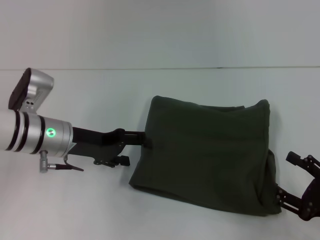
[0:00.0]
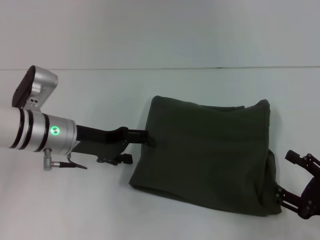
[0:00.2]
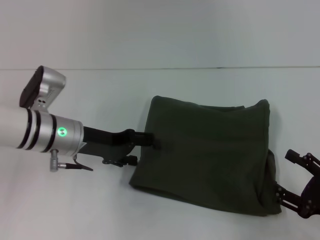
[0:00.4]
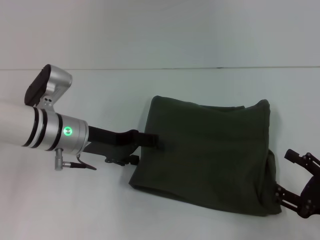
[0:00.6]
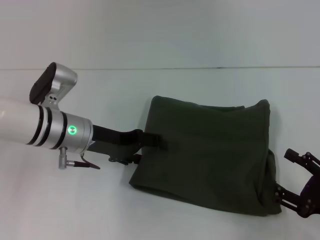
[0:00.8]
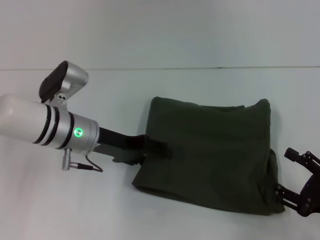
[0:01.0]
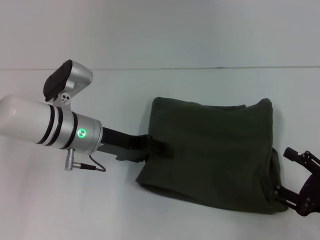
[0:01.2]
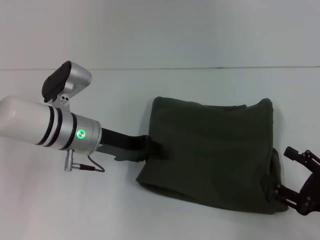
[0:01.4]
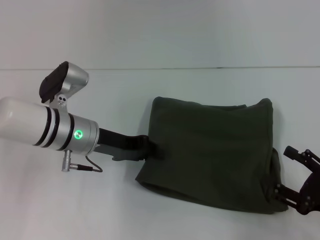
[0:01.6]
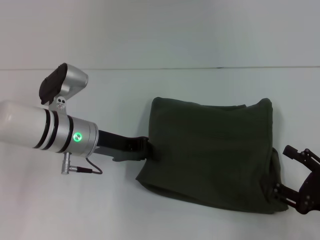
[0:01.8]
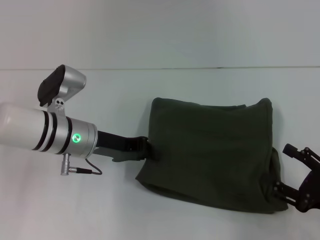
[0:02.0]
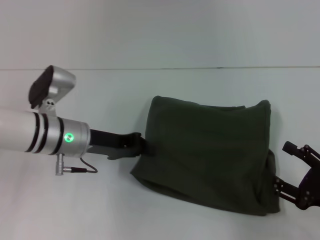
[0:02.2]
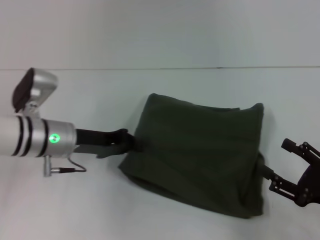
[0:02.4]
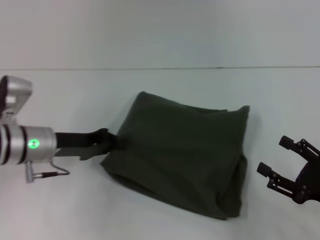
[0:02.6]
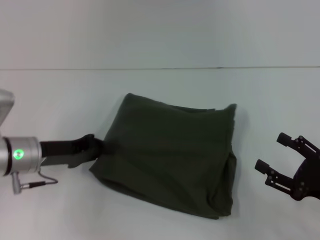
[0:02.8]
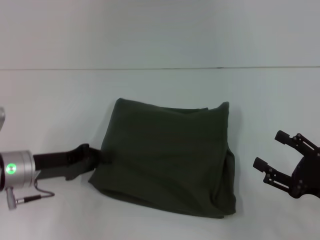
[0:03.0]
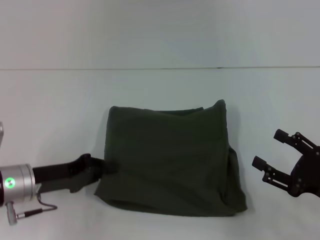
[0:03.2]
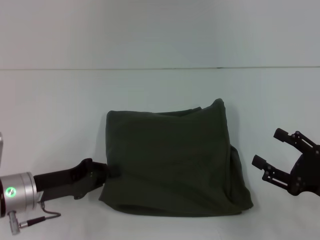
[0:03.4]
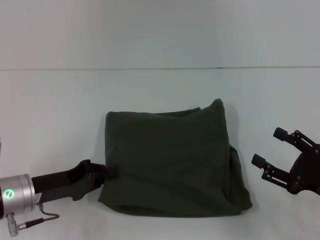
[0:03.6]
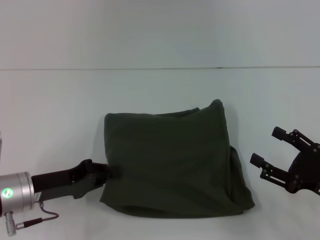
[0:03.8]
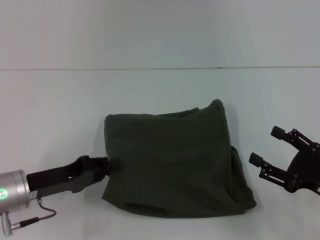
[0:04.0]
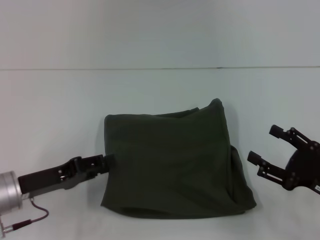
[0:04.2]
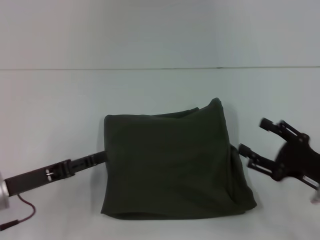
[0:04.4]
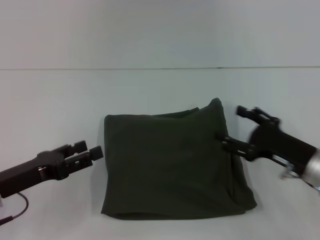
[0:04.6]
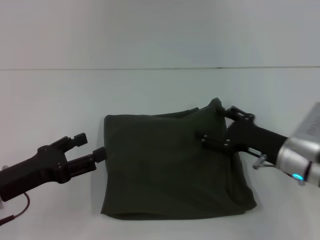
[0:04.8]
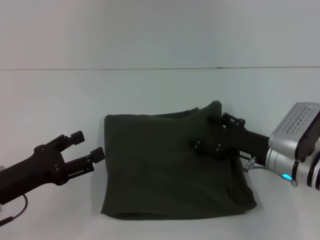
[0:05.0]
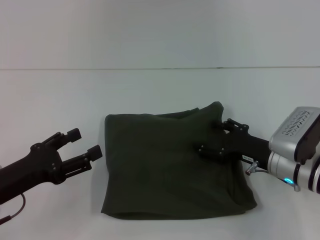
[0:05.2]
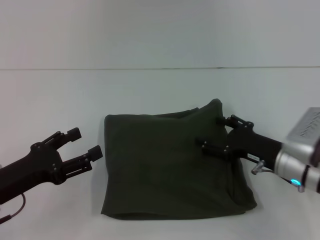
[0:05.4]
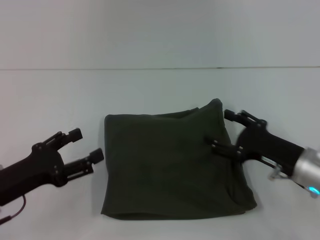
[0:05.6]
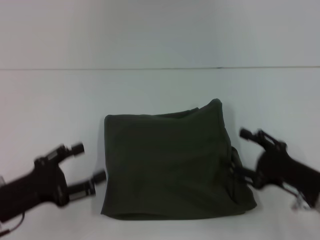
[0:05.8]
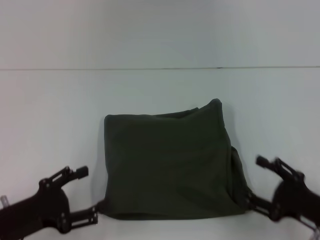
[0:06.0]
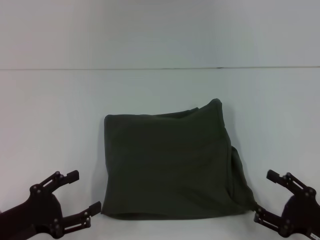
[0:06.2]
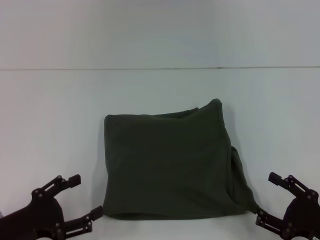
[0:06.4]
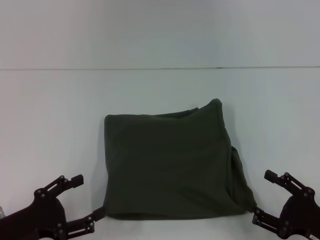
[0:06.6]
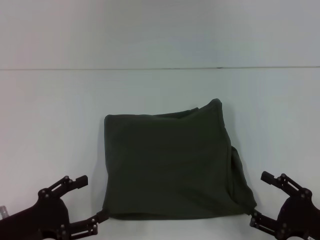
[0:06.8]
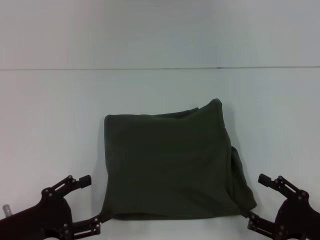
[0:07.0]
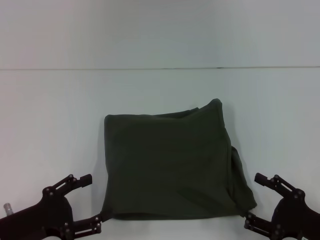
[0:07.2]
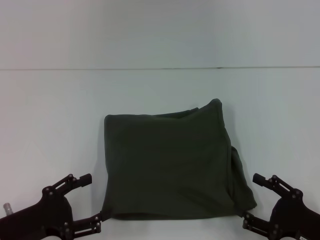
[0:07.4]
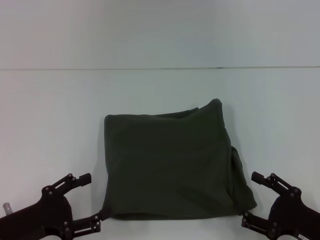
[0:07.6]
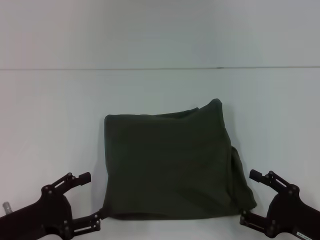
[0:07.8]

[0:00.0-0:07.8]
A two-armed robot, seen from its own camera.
0.0 to 1.6 s: The left gripper closes its fingers.
1.6 to 3.2 s: The left gripper is displaced to the left and backward by approximately 10 cm, and closes up.
3.2 to 4.6 s: The left gripper shifts by approximately 5 cm, and opens up. The right gripper shifts roughly 5 cm forward.
4.6 to 6.2 s: The left gripper goes about 5 cm backward, and opens up. The right gripper heads backward, covering approximately 10 cm.
6.2 to 7.8 s: The grippers make only small movements.

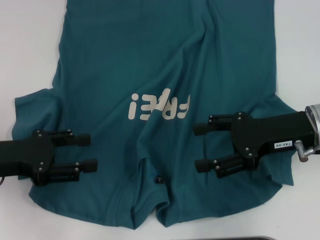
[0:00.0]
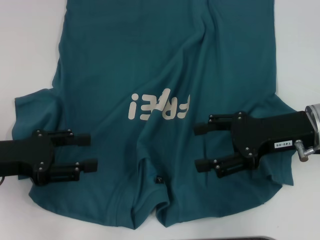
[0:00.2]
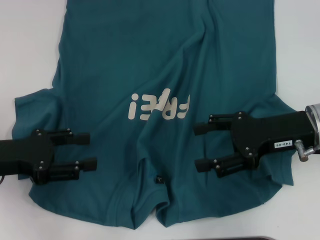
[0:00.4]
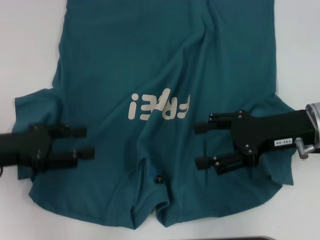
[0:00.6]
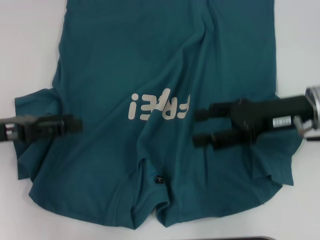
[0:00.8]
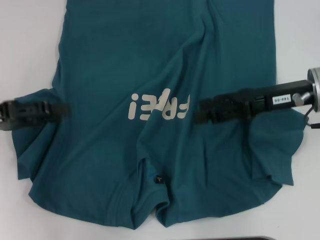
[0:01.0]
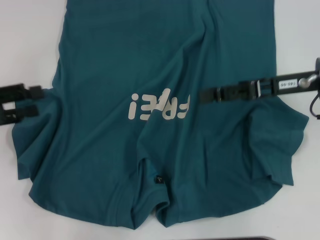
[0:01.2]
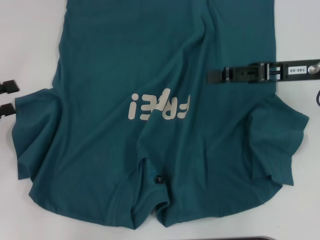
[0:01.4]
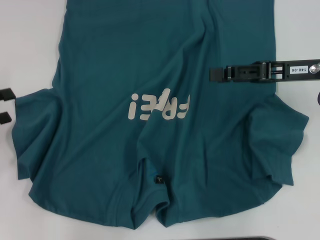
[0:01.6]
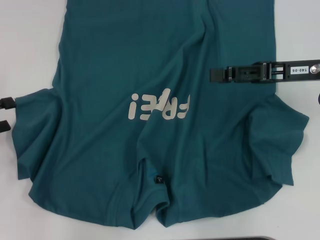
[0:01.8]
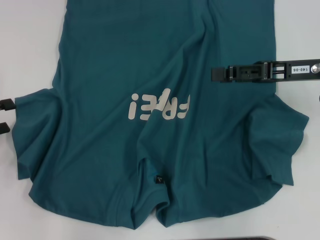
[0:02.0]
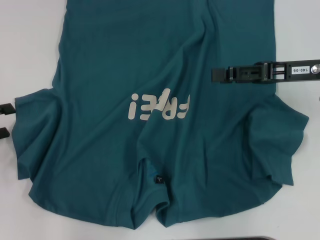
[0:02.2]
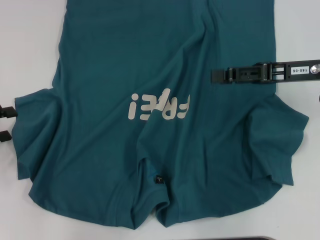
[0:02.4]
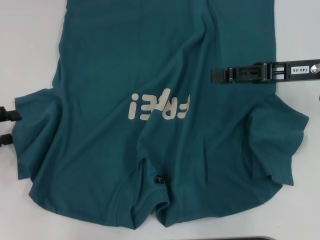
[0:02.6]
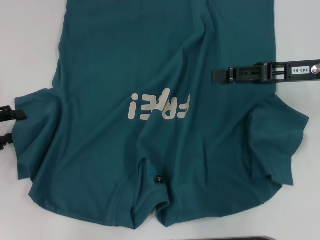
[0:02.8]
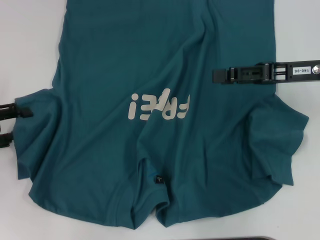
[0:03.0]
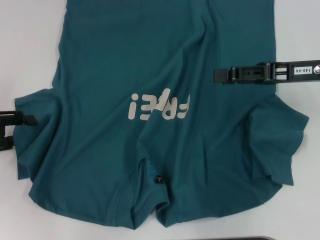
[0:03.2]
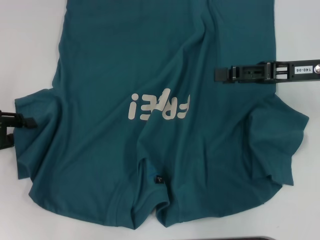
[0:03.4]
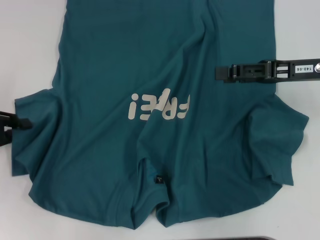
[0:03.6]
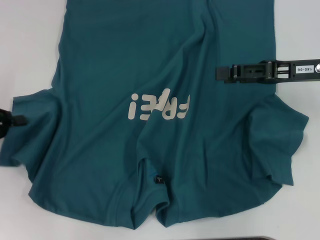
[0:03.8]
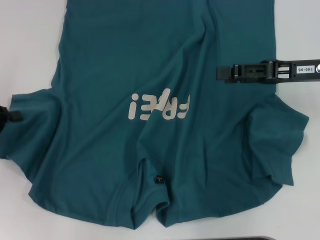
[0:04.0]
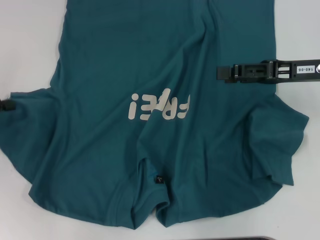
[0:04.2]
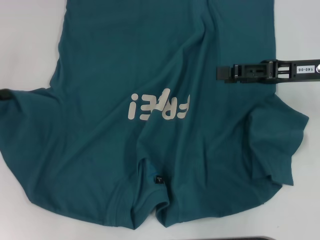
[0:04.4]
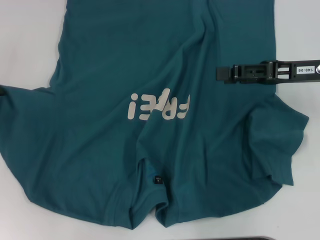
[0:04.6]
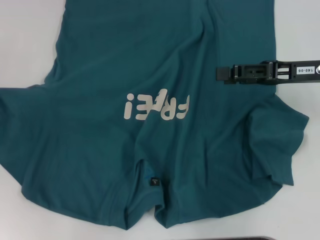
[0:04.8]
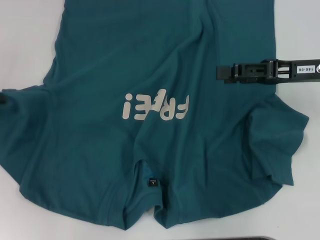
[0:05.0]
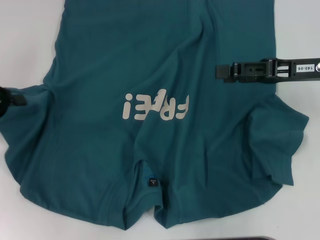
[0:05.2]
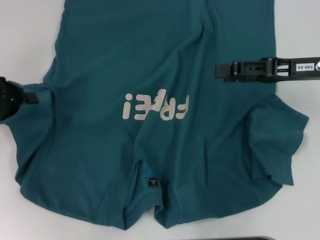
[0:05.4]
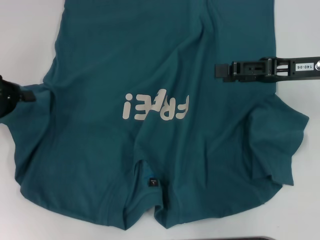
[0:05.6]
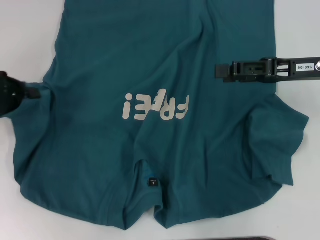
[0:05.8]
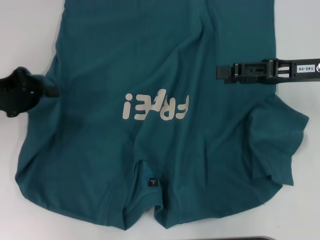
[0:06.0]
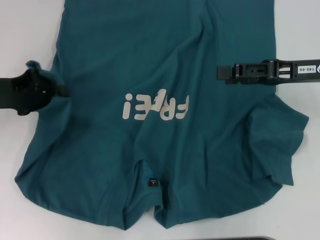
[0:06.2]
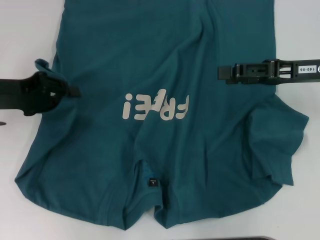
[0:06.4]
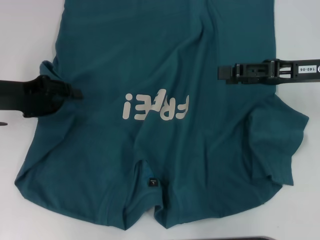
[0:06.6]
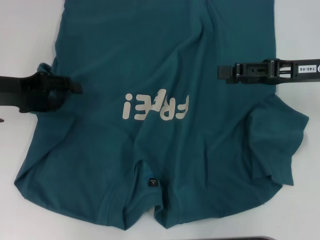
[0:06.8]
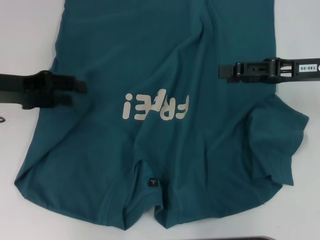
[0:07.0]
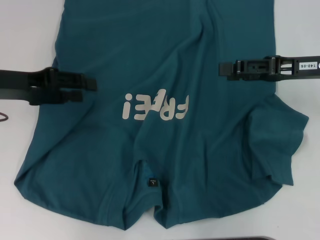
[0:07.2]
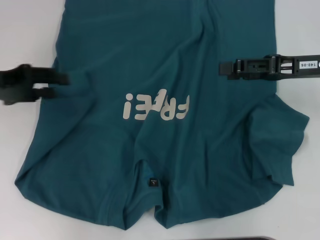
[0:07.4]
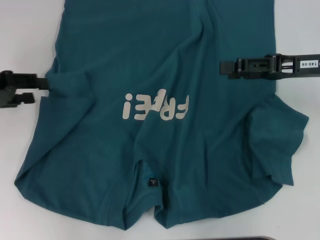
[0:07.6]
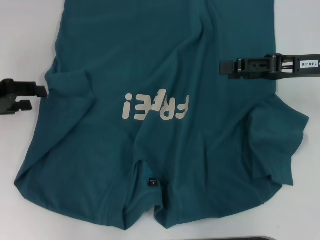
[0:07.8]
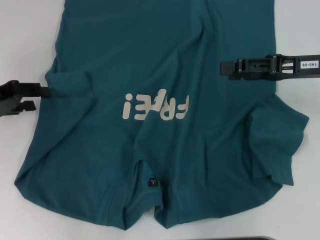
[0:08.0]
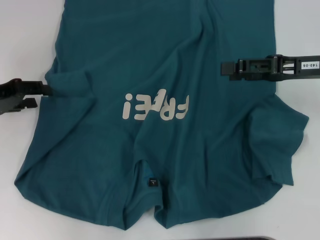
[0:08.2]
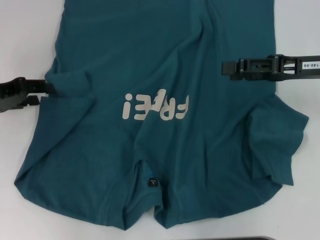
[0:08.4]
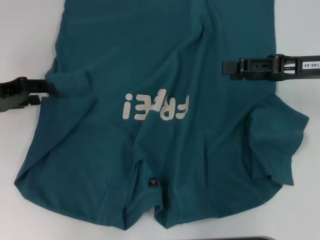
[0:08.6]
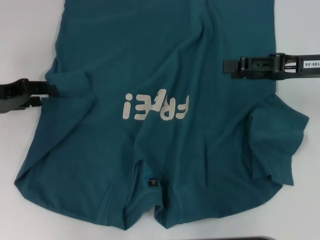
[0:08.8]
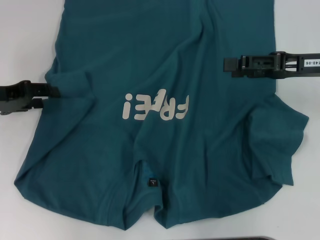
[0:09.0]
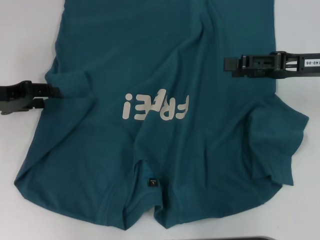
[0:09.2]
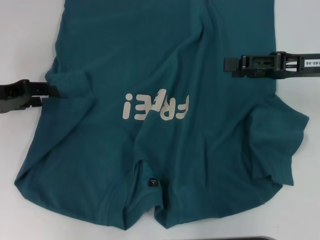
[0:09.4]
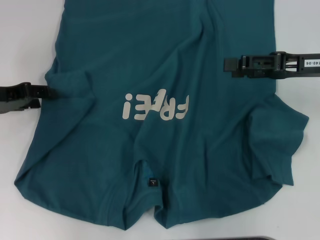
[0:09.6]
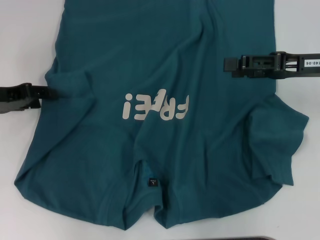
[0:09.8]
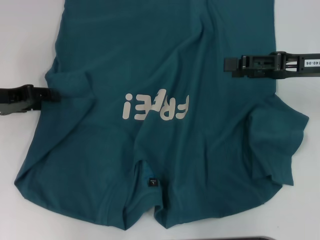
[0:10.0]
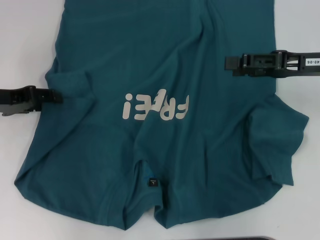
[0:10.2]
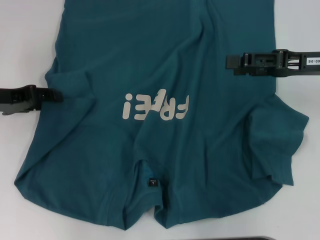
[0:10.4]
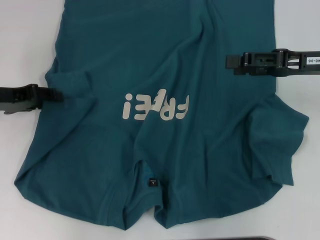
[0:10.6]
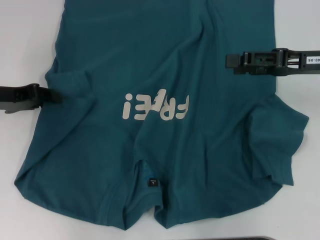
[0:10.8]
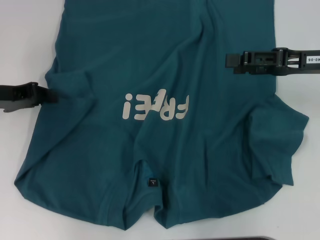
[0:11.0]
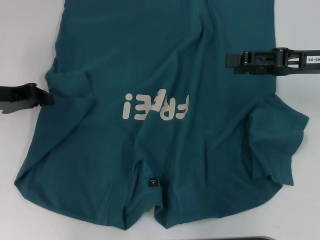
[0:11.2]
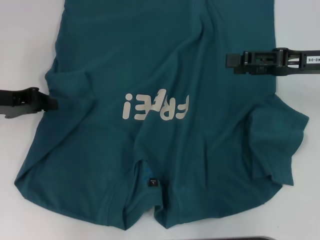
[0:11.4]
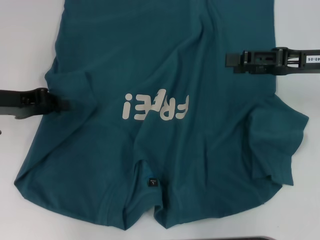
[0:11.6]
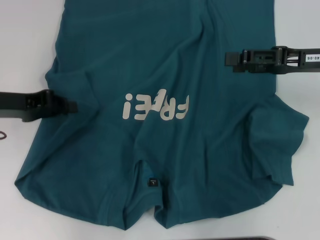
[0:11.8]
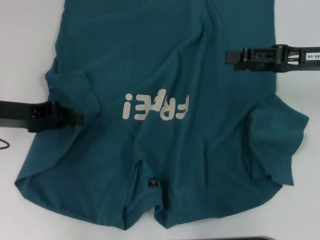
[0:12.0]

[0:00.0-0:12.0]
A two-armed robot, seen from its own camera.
0.0 to 1.6 s: The left gripper travels to the left by roughly 10 cm; the right gripper is displaced forward by about 5 cm.
1.6 to 3.0 s: The grippers make only small movements.
3.0 to 4.4 s: The left gripper closes up.
4.4 to 6.0 s: The left gripper travels to the right by approximately 5 cm.
6.0 to 7.6 s: The left gripper opens up.
7.6 to 10.4 s: The grippers move only a little.
10.4 to 12.0 s: The left gripper closes.

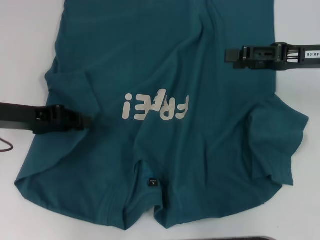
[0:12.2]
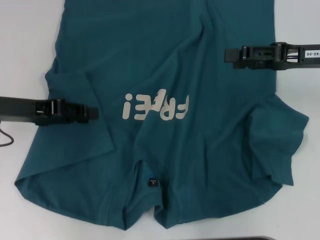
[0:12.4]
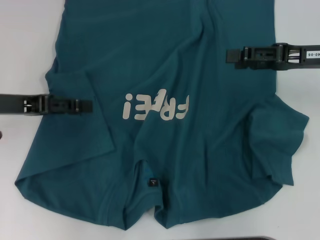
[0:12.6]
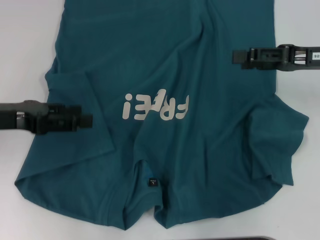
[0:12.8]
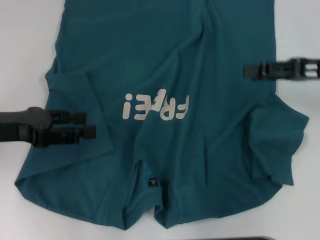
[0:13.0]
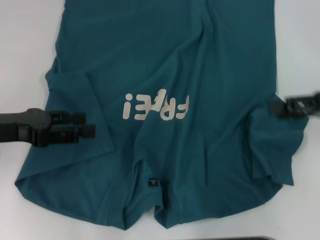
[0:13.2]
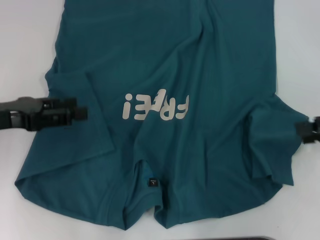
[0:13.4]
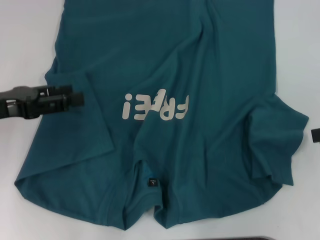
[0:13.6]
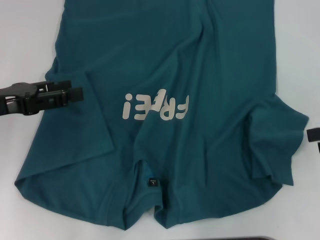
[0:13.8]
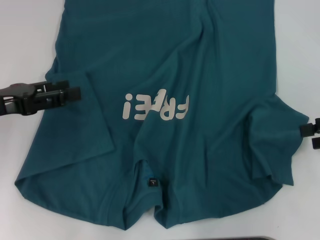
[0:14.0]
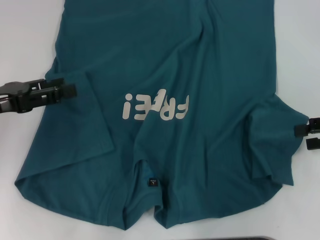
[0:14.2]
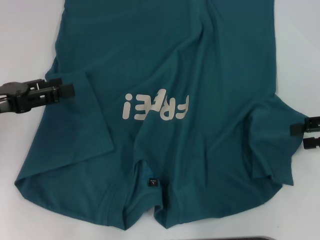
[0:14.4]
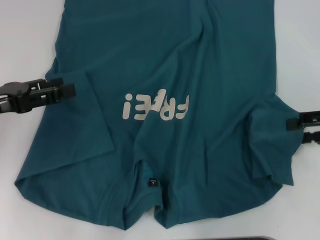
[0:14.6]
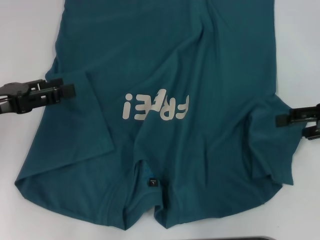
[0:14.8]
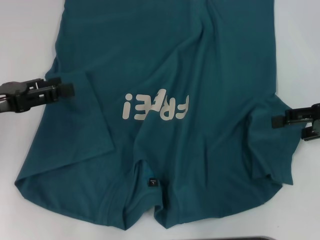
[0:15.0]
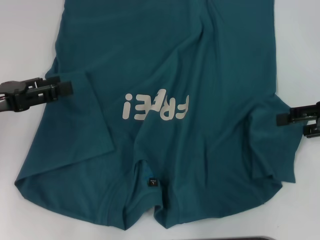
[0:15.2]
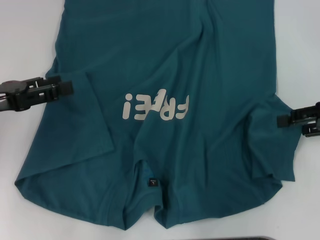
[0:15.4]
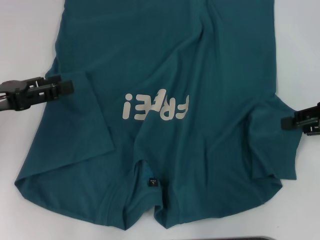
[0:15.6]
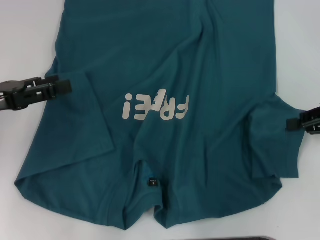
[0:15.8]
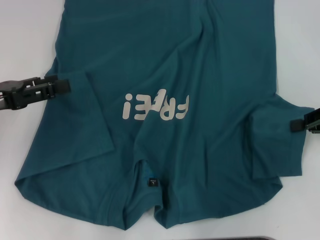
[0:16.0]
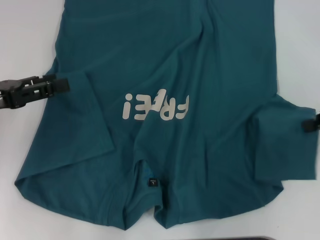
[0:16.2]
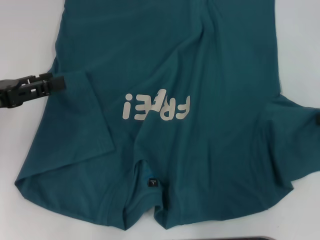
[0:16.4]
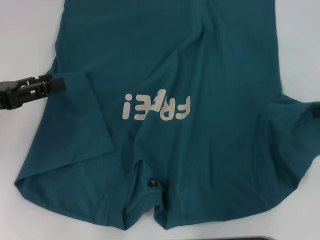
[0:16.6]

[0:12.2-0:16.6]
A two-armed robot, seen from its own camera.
12.2 to 13.6 s: The left gripper opens. The right gripper shifts some 15 cm to the right and backward.
13.6 to 15.2 s: The right gripper moves approximately 5 cm.
15.2 to 16.6 s: The right gripper closes up.
